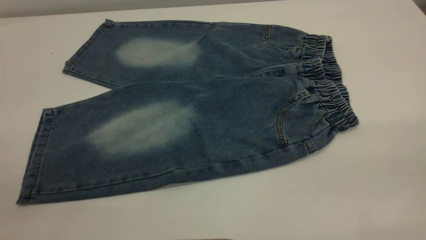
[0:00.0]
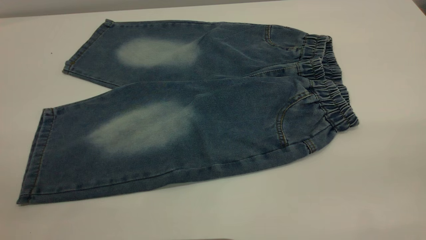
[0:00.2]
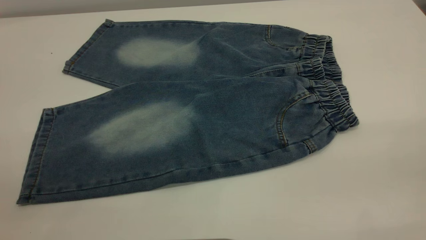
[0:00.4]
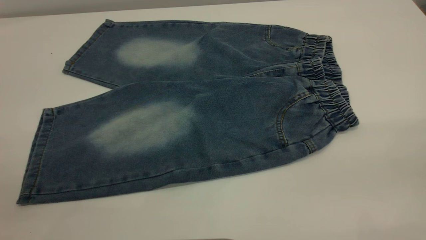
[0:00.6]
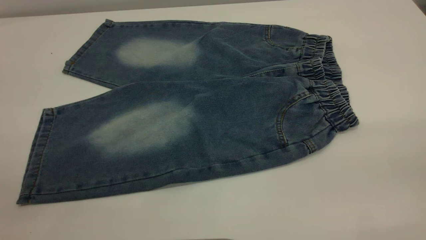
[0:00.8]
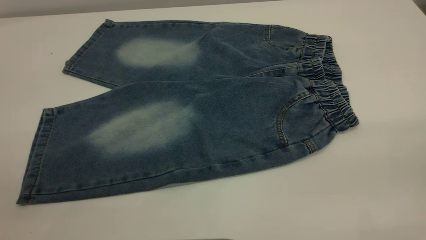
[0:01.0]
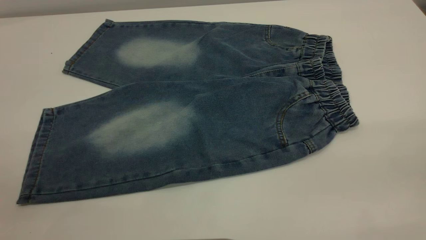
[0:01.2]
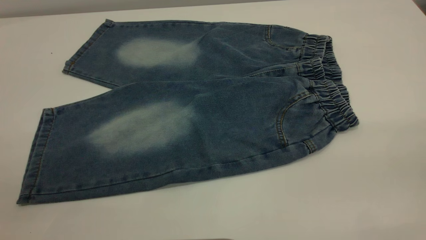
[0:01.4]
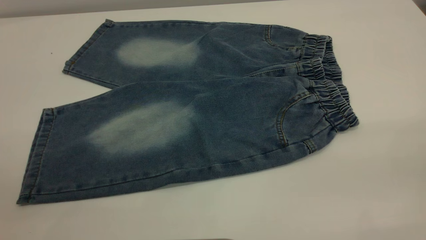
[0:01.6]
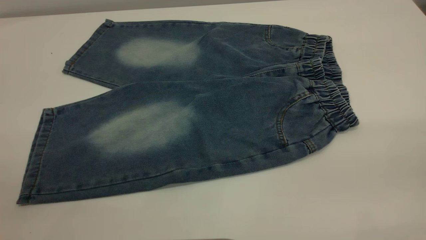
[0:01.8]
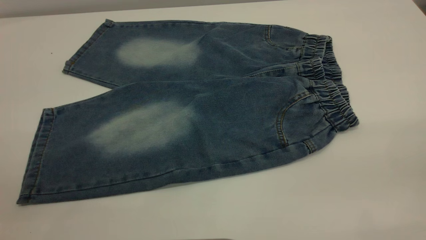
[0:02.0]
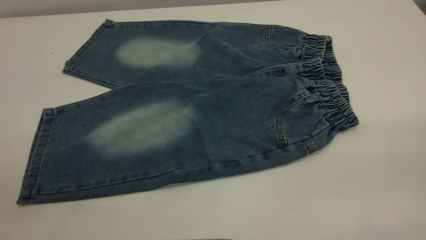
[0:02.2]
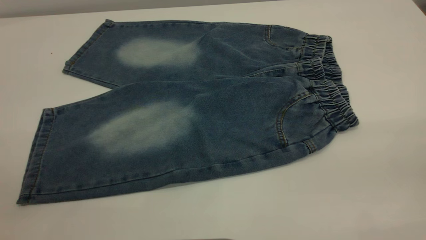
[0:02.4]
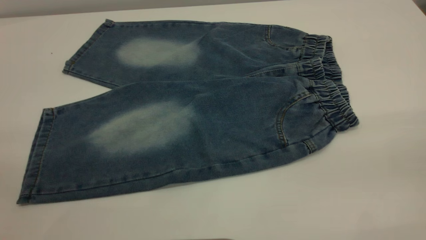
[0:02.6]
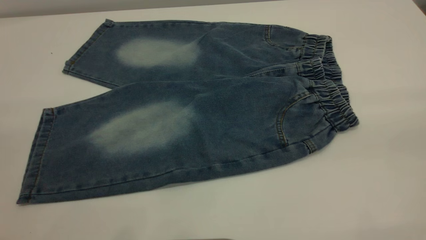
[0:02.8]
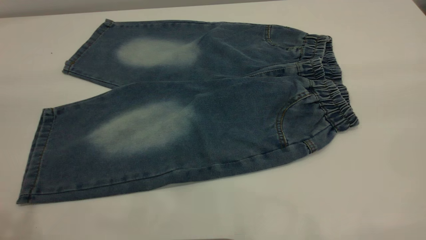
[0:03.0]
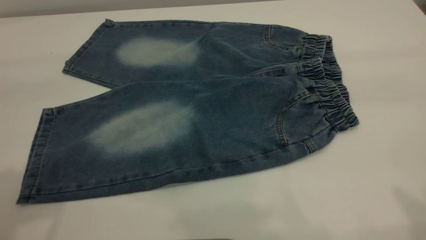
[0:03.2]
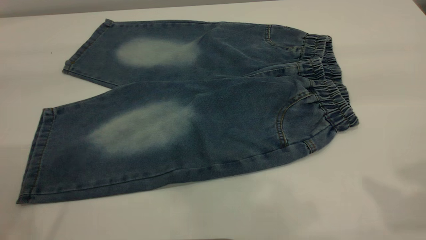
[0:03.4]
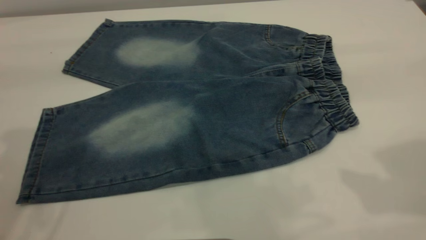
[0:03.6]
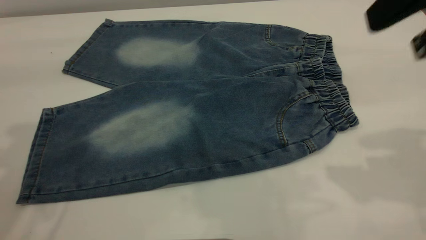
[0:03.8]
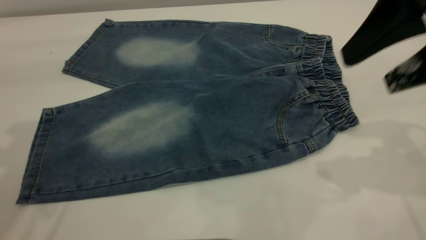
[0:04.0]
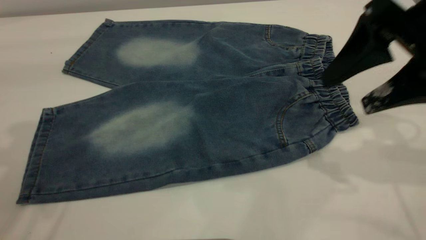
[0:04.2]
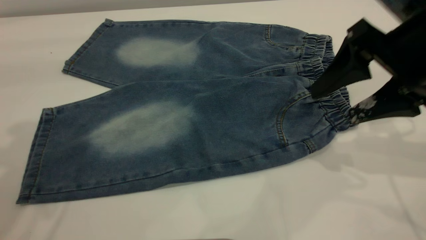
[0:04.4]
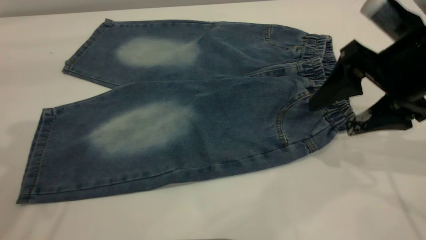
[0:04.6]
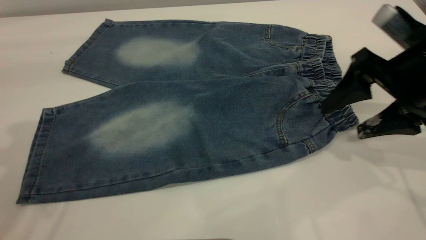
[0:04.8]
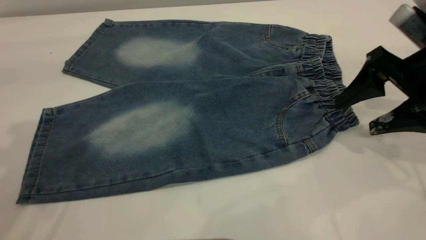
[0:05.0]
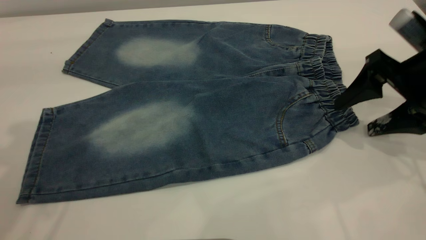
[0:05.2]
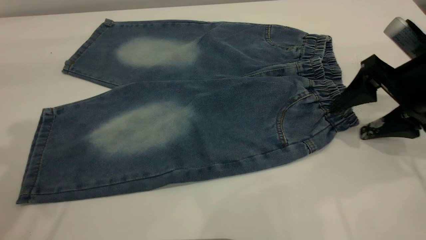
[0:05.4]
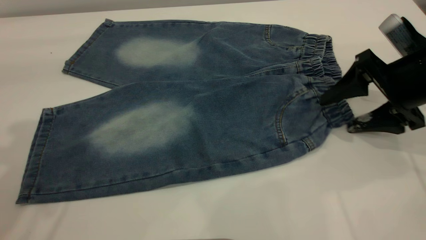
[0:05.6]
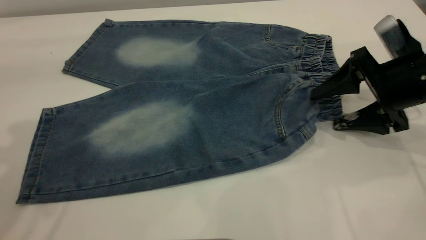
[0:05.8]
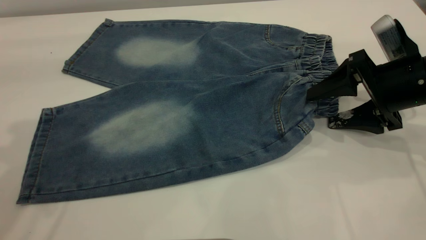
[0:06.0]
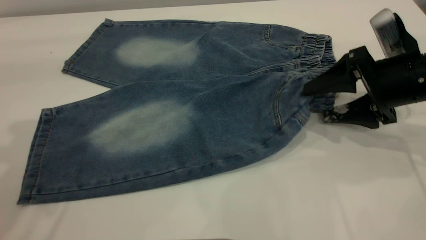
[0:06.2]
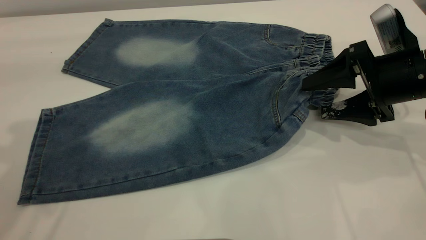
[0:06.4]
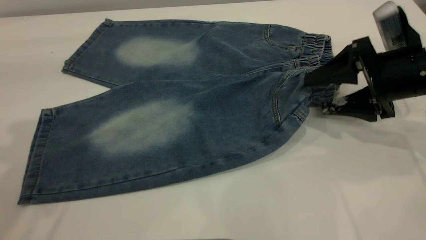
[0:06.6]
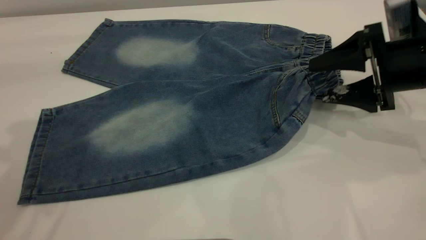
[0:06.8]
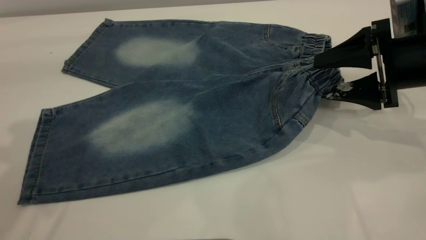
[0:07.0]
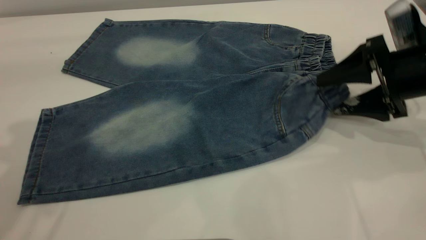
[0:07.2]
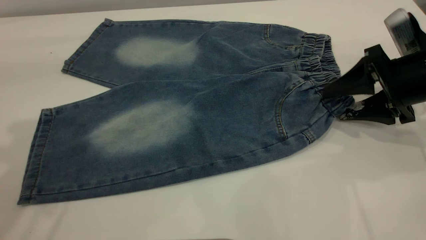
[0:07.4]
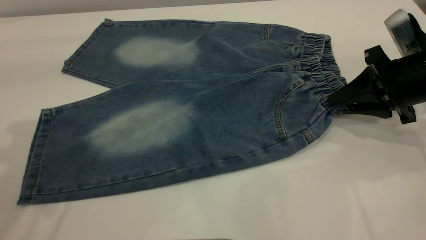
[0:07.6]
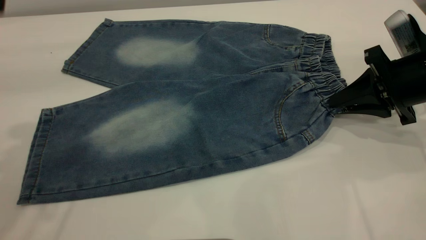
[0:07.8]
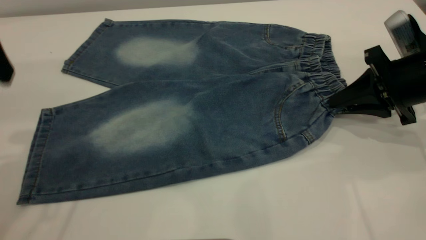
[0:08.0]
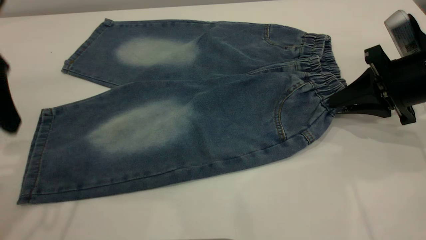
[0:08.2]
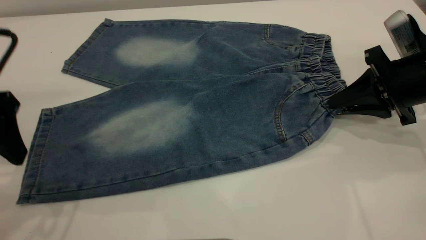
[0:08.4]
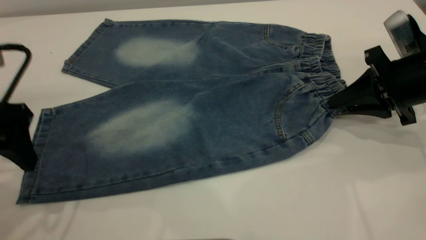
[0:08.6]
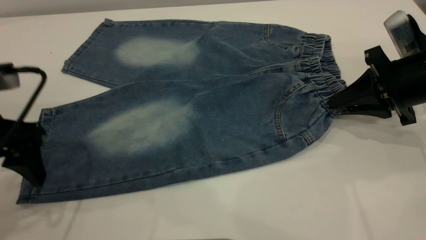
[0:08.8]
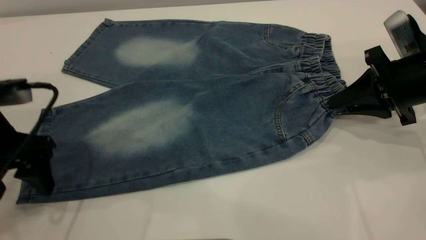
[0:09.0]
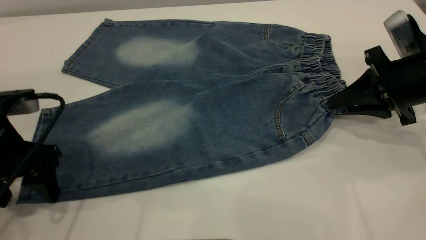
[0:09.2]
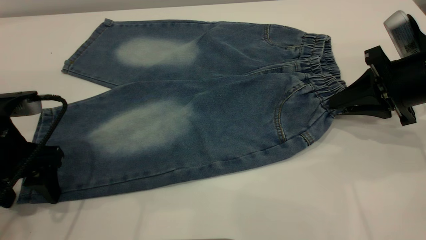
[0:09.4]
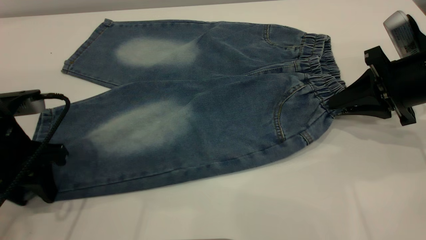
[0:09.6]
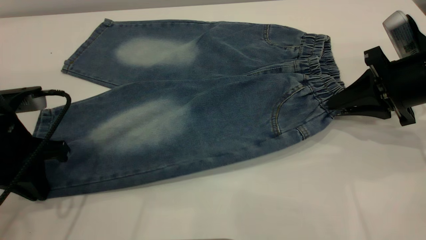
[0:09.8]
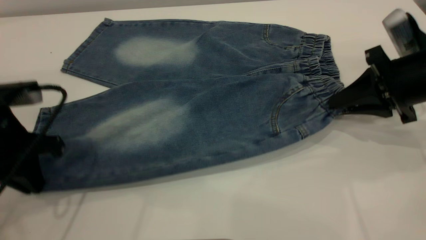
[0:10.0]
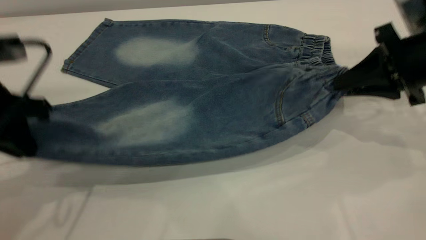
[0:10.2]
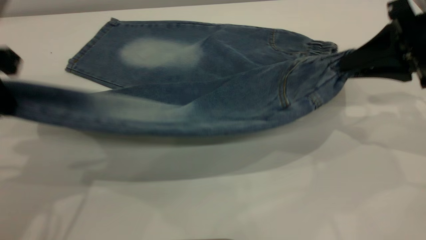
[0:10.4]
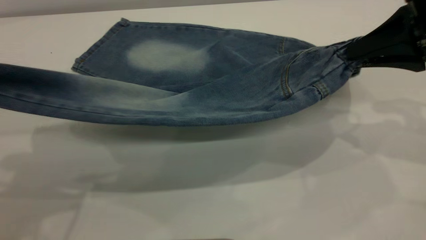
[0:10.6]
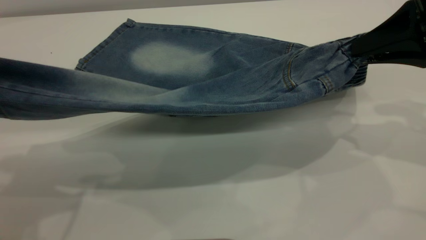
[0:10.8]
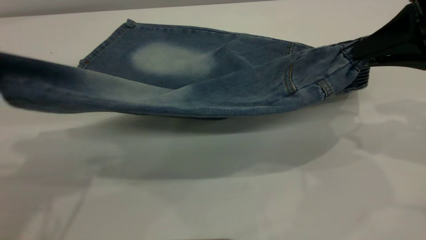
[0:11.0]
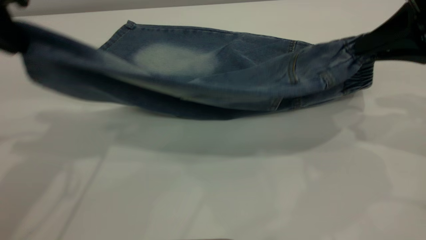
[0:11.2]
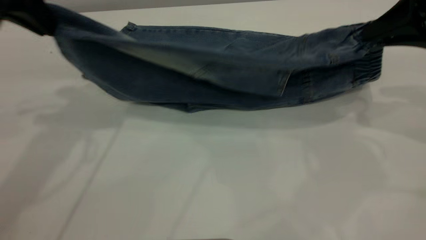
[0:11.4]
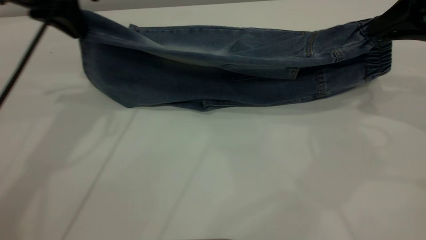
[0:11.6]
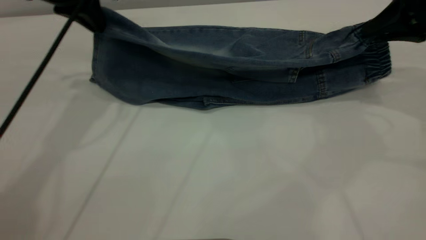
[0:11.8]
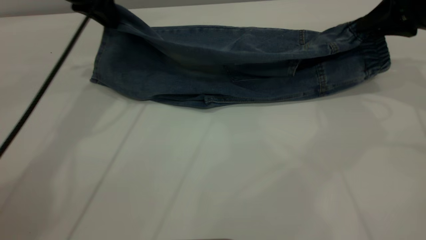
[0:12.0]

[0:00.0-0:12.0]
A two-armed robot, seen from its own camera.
0:00.0 to 0:01.6: Both grippers stay about where they are.
0:03.0 to 0:04.4: The right gripper travels downward and forward by roughly 25 cm. Meanwhile the left gripper shifts some 15 cm forward.
0:04.4 to 0:06.0: The right gripper moves downward, approximately 10 cm.
0:06.0 to 0:07.6: The right gripper closes.
0:07.6 to 0:09.0: The left gripper heads downward, covering some 20 cm.
0:09.0 to 0:10.4: The left gripper is displaced upward by about 10 cm, and closes. Meanwhile the right gripper travels upward by about 10 cm.
0:10.4 to 0:12.0: The left gripper is displaced forward by approximately 20 cm, while the right gripper is displaced forward by roughly 10 cm.

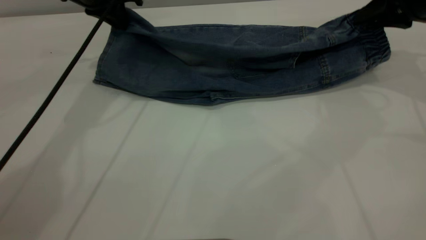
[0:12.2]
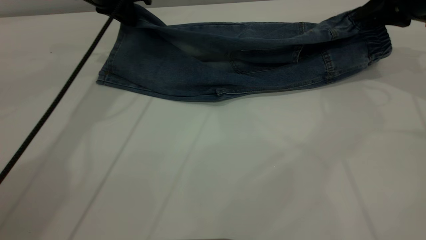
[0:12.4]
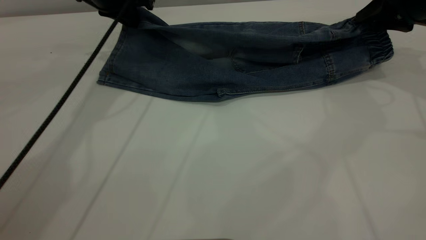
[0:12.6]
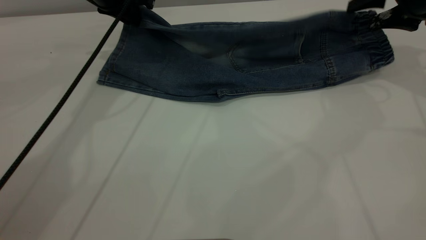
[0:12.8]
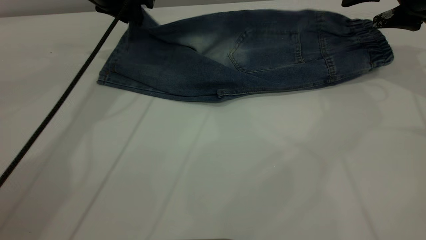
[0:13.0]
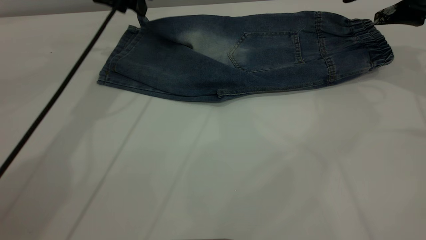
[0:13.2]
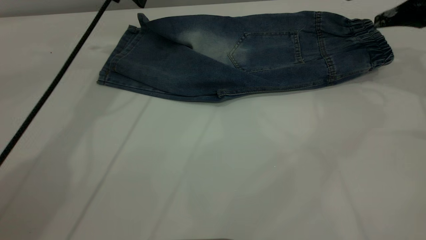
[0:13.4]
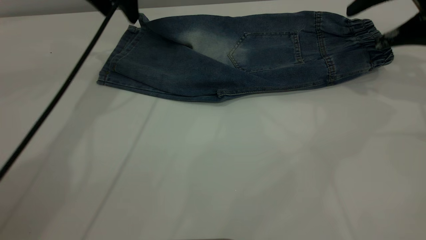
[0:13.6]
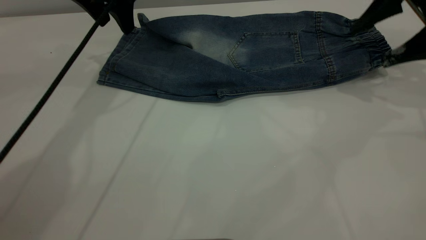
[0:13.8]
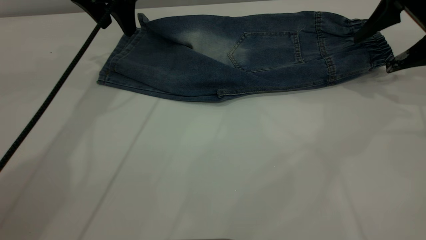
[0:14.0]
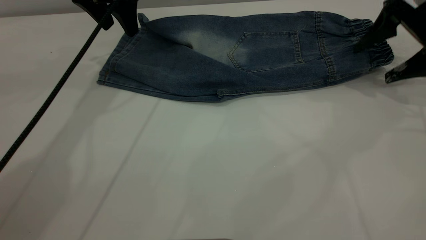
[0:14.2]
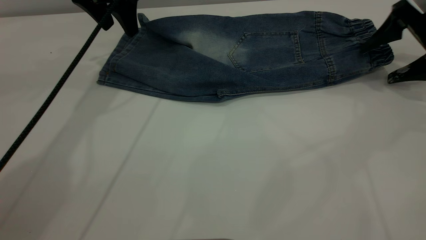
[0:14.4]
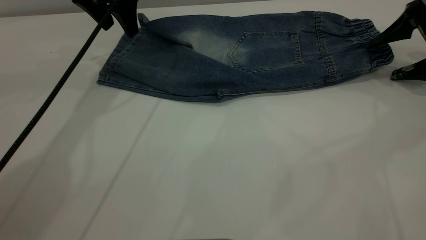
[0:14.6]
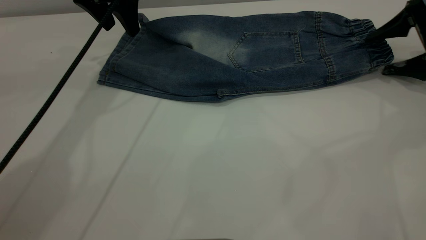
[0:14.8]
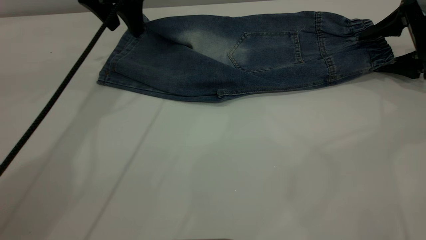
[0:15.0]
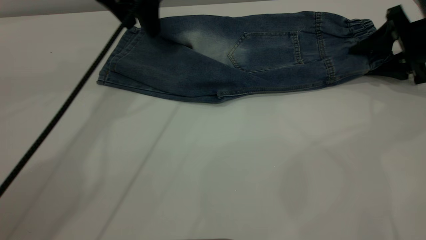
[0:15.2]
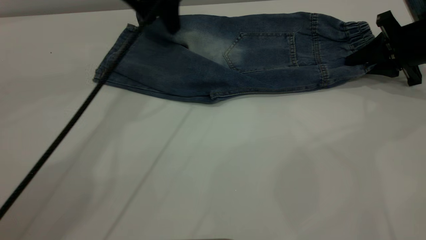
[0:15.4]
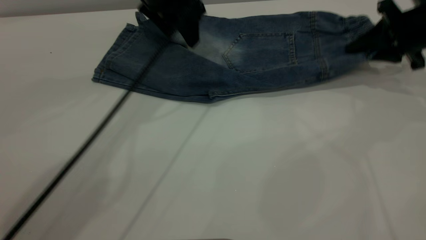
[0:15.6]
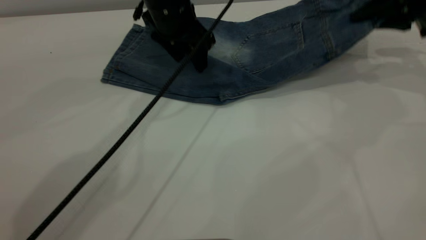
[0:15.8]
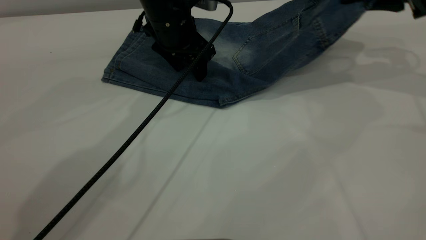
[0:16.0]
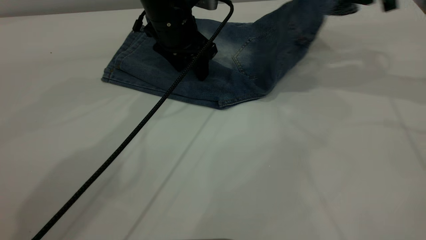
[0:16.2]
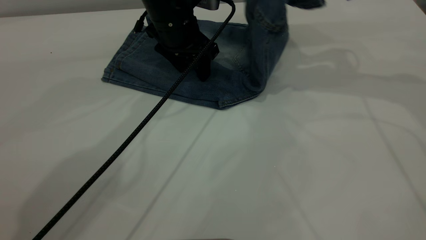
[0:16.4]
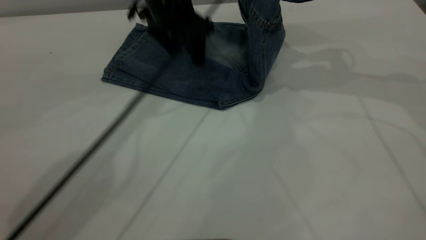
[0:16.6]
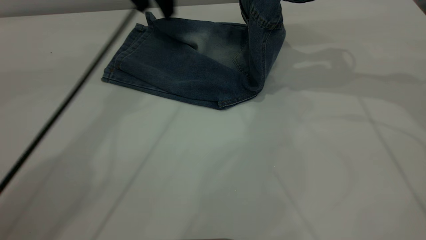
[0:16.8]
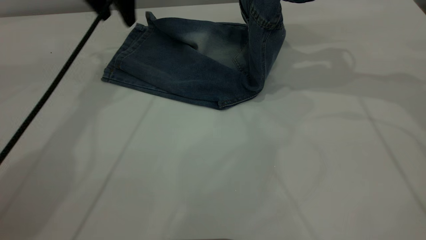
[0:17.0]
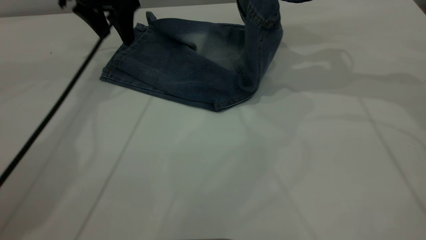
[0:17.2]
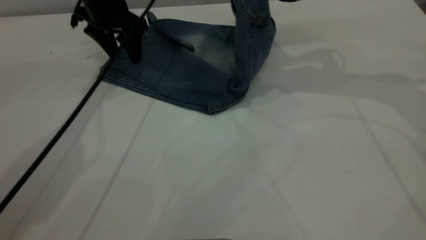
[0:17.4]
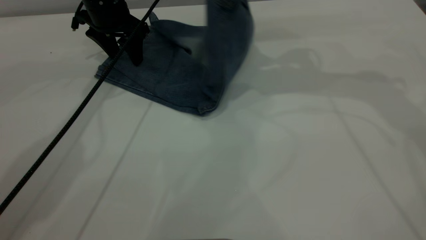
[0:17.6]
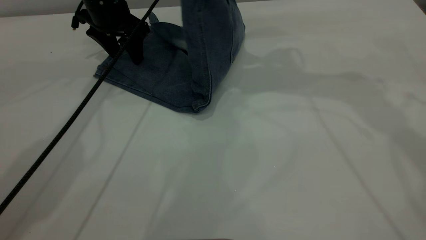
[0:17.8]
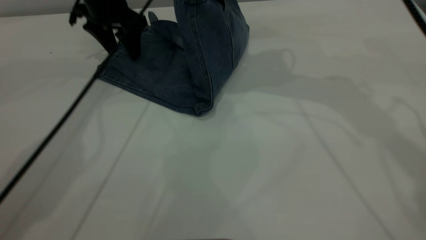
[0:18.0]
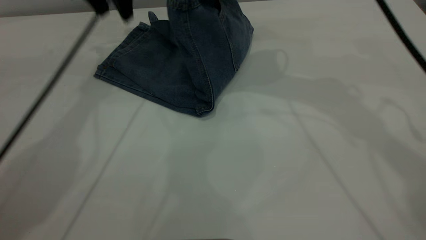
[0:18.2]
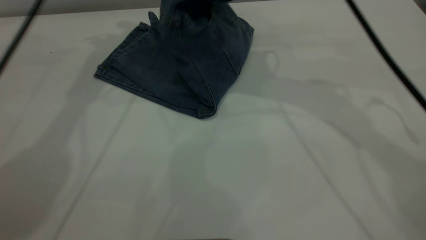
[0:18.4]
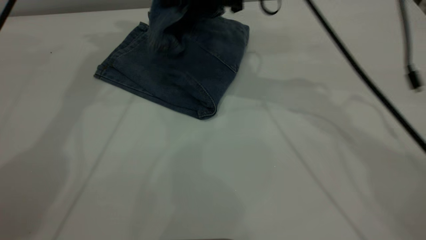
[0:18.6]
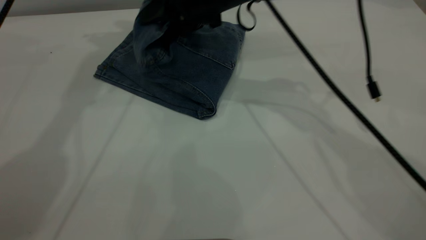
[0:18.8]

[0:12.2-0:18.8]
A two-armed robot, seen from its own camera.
0:12.2 to 0:13.8: The right gripper opens. The left gripper opens.
0:13.8 to 0:15.4: The left gripper heads to the right, covering some 10 cm. The right gripper goes about 10 cm downward, and closes up.
0:15.4 to 0:17.2: The left gripper goes about 10 cm to the left, while the right gripper goes roughly 20 cm upward and to the left.
0:17.2 to 0:18.8: The left gripper moves upward, some 20 cm; the right gripper travels to the left by approximately 20 cm.
